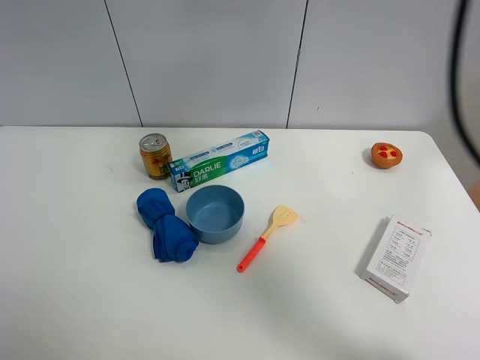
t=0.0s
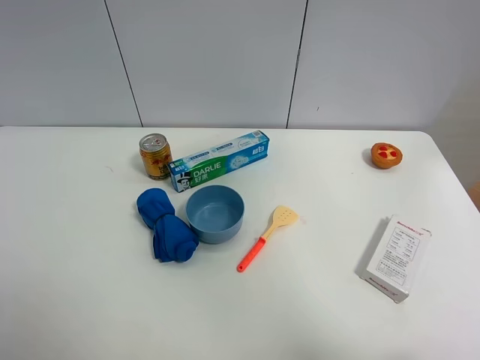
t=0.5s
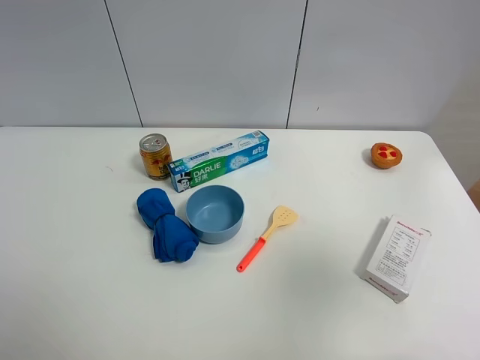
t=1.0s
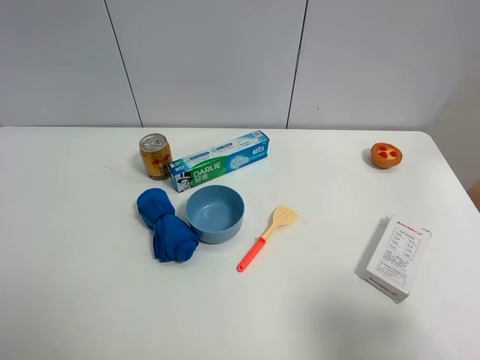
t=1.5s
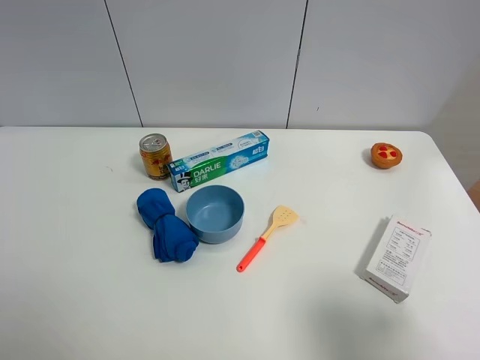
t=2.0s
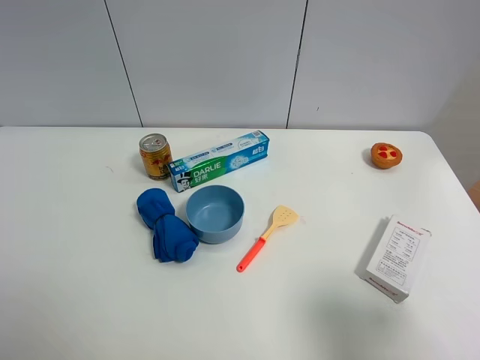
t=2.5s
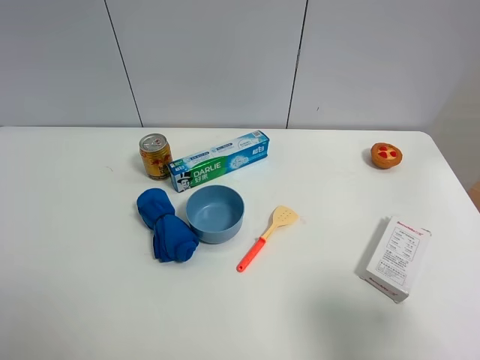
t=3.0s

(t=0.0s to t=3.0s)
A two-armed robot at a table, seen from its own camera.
Task of the whole recording: the gripper move the object.
t=0.0s - t=1.5s: The right gripper moves backward, downward and to the right, some 40 cm.

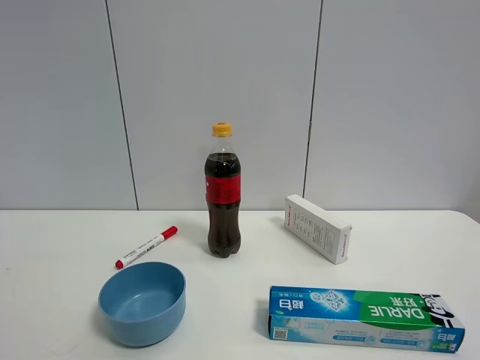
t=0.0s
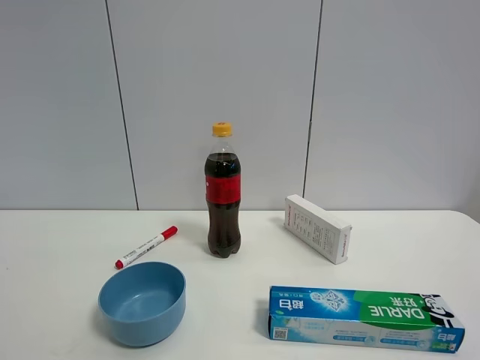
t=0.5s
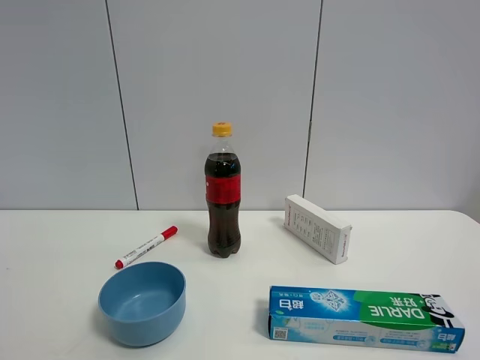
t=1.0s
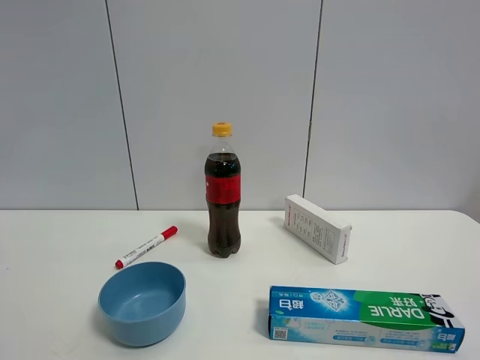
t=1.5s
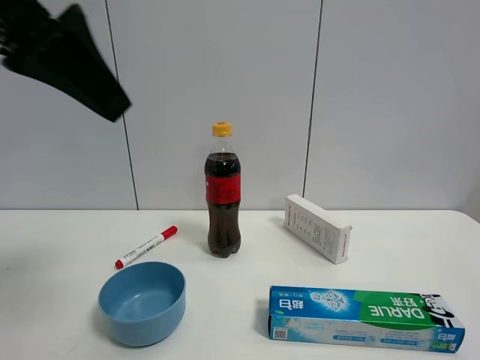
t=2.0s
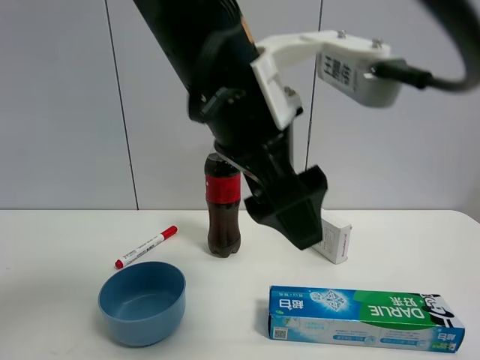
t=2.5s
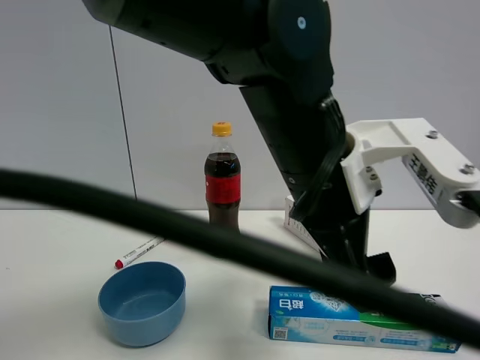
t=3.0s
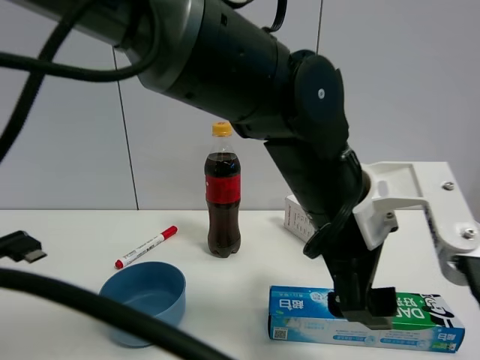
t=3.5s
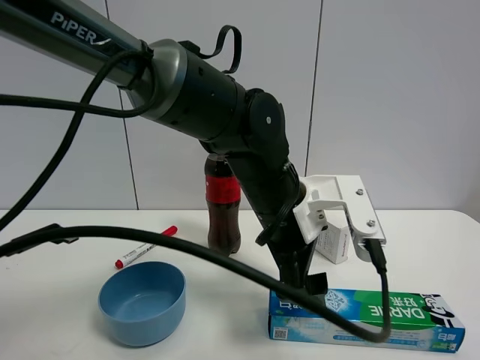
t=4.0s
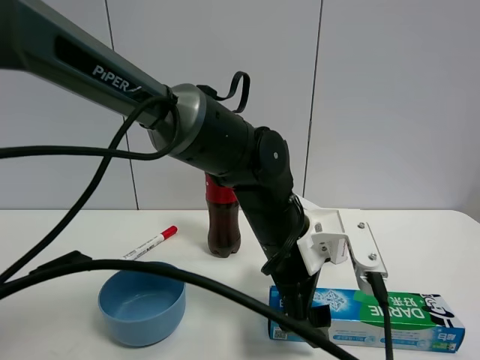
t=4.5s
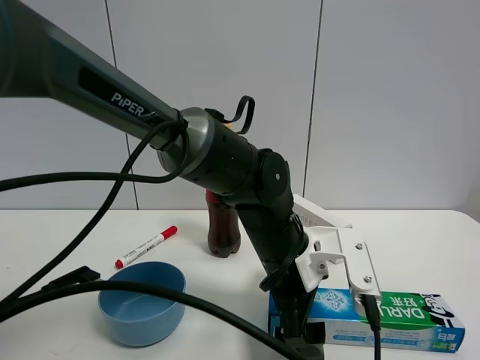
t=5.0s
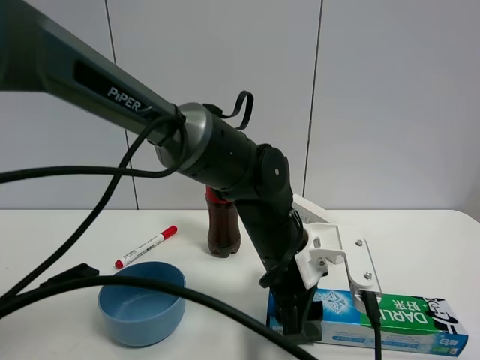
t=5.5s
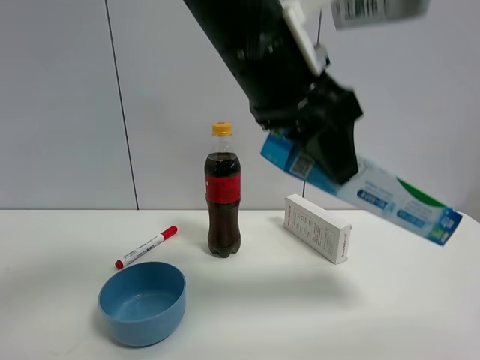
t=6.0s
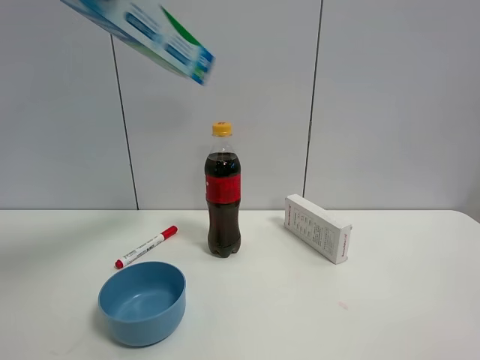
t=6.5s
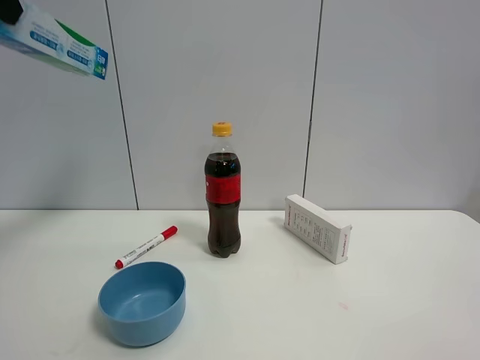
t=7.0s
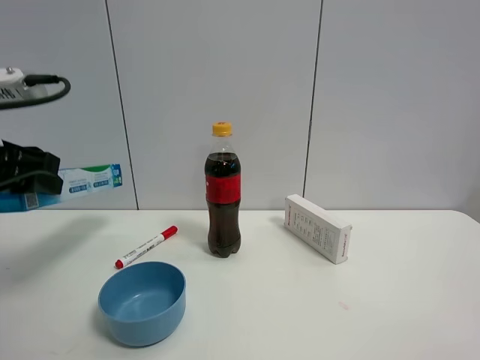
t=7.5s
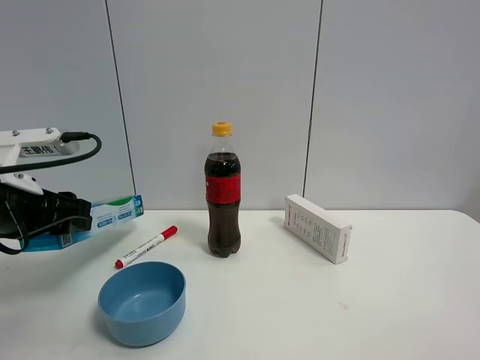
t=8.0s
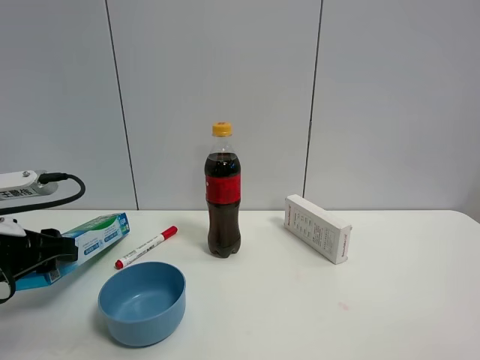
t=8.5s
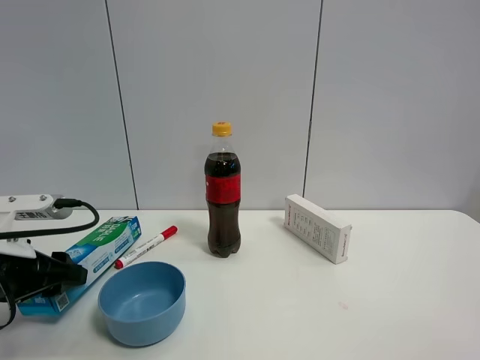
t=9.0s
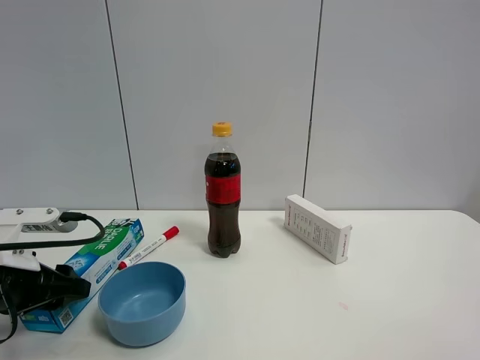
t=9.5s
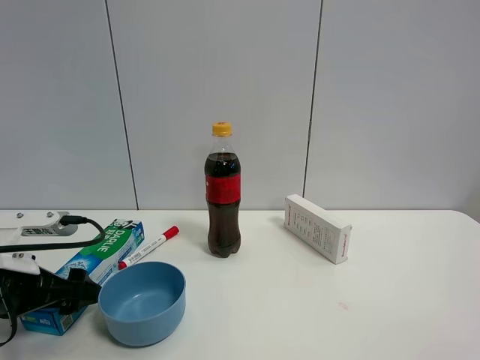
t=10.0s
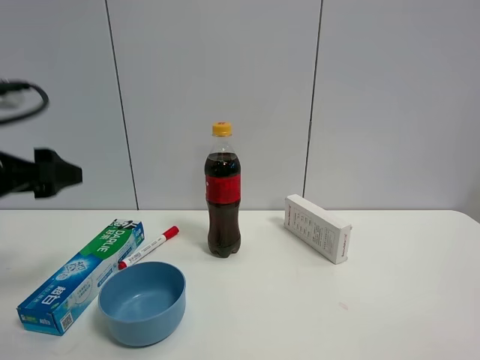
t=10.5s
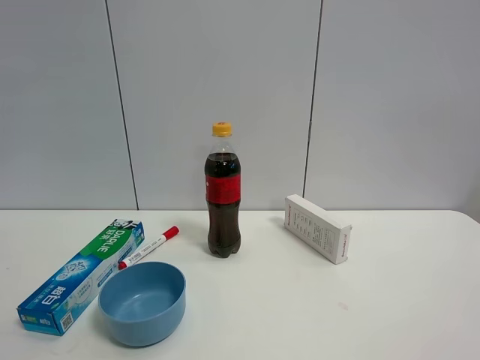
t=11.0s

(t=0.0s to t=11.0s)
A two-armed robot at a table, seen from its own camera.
Task of the whole recording: the gripper move the object.
Step, t=0.0s - t=5.0s: Grasp the toothpaste with the left gripper.
Step, t=5.5s - t=10.0s: Place the toothpaste on the table with the left gripper.
t=0.0s - t=2.0s: The left gripper is displaced forward and to the right by approximately 30 cm.
t=2.0s - t=3.5s: The left gripper travels to the right and downward by roughly 30 cm.
t=3.5s - t=5.5s: The left gripper moves downward, roughly 5 cm, and closes up.
t=5.5s - t=7.5s: The left gripper is displaced to the left by some 30 cm, and moves roughly 35 cm upward and comes back.
t=7.5s - t=9.0s: The left gripper is displaced downward by approximately 15 cm.
t=9.0s - t=11.0s: The left gripper is displaced upward by roughly 30 cm, and opens up.

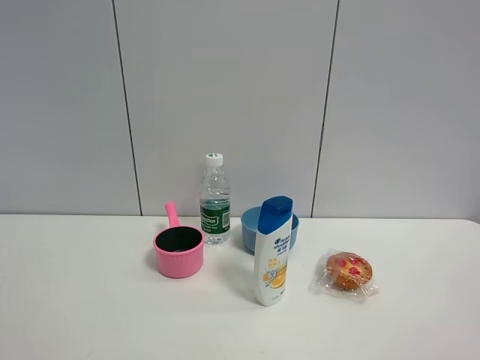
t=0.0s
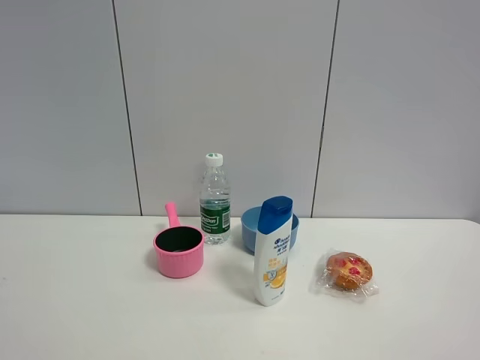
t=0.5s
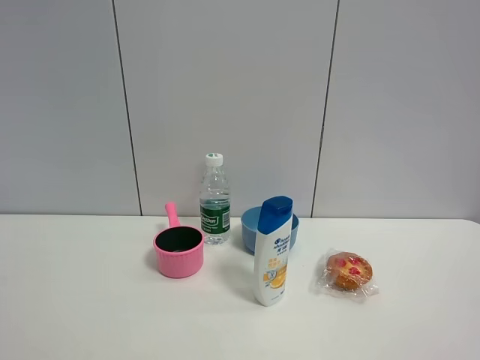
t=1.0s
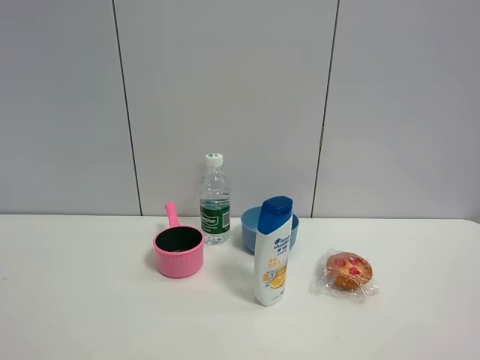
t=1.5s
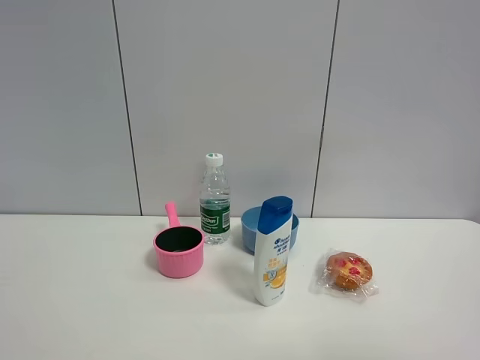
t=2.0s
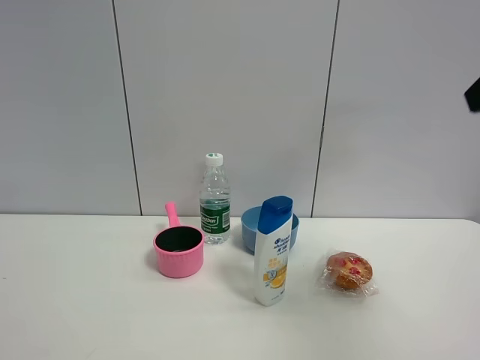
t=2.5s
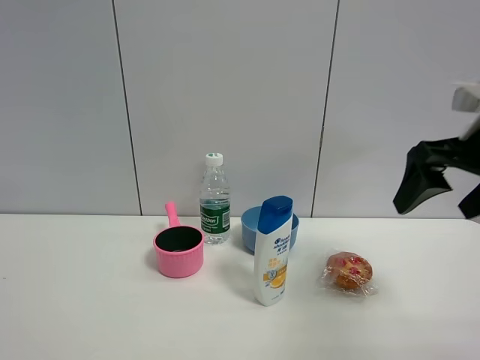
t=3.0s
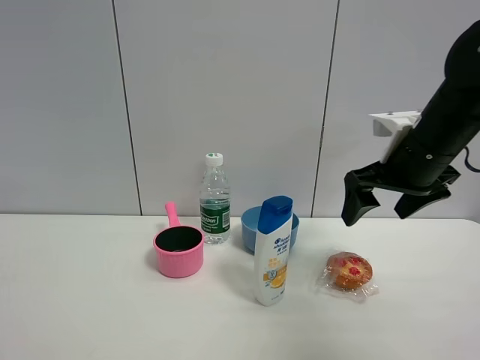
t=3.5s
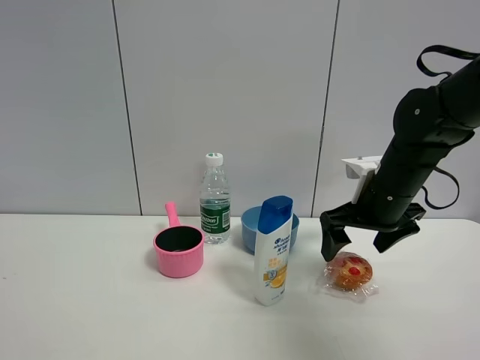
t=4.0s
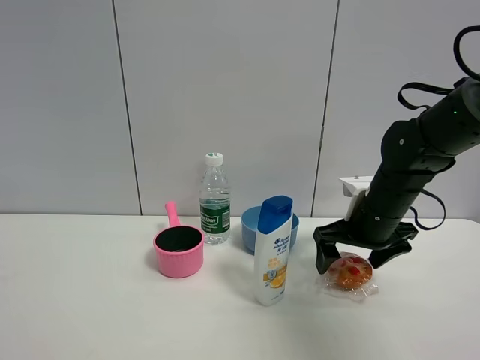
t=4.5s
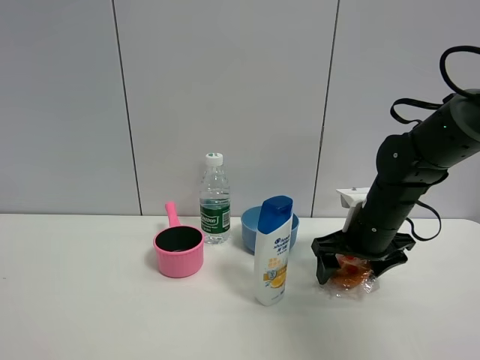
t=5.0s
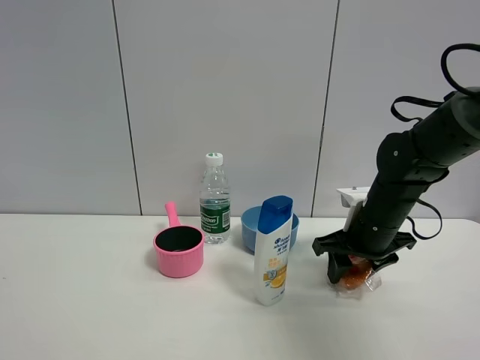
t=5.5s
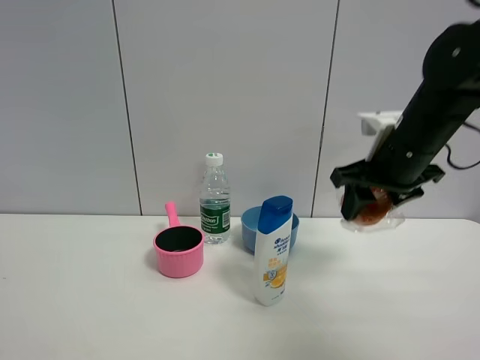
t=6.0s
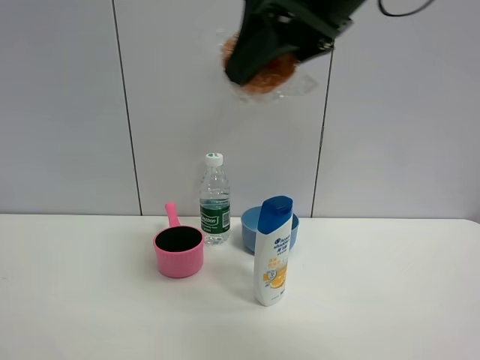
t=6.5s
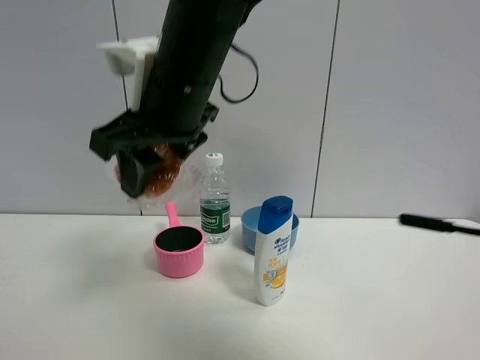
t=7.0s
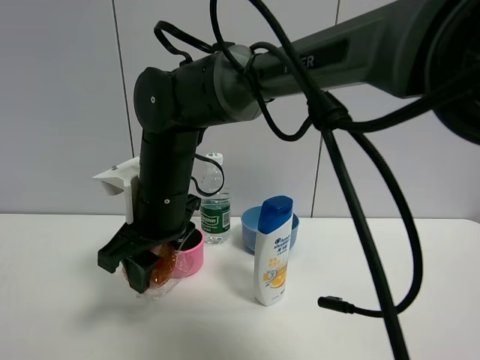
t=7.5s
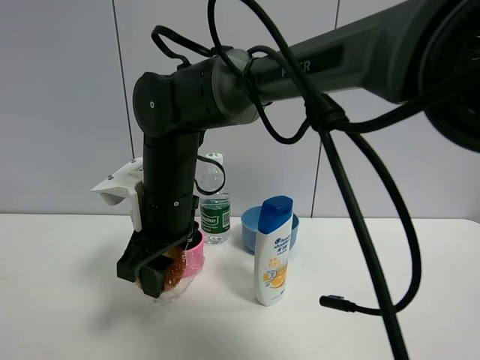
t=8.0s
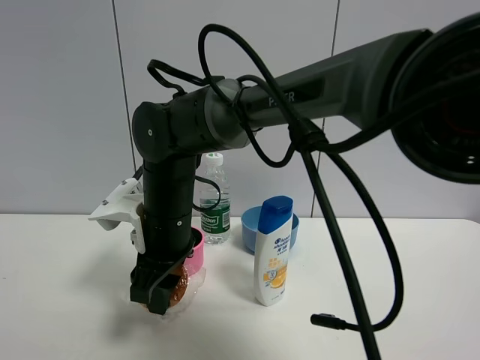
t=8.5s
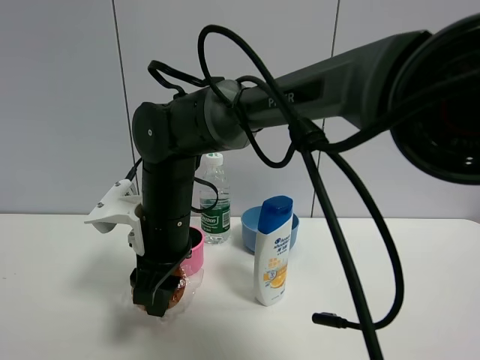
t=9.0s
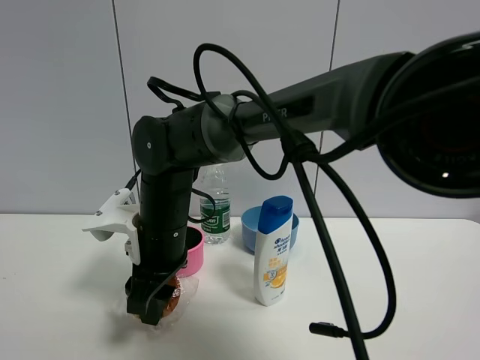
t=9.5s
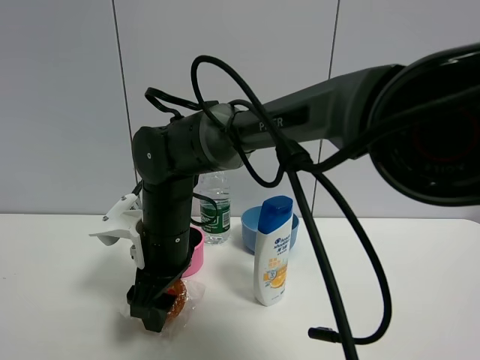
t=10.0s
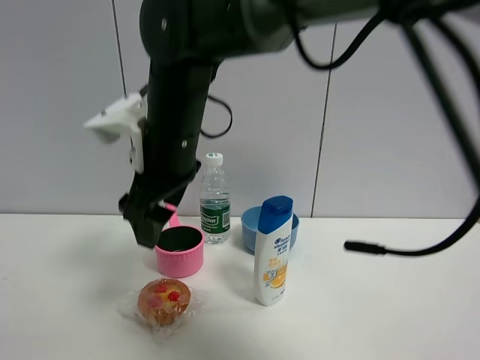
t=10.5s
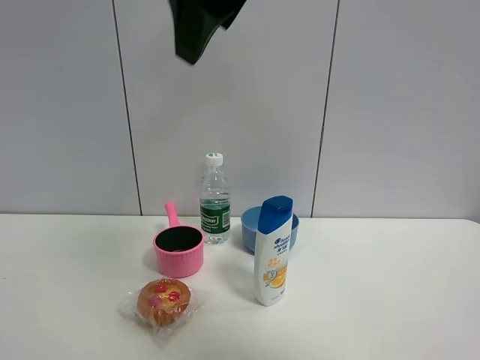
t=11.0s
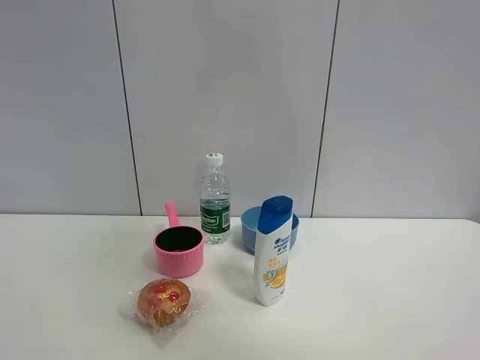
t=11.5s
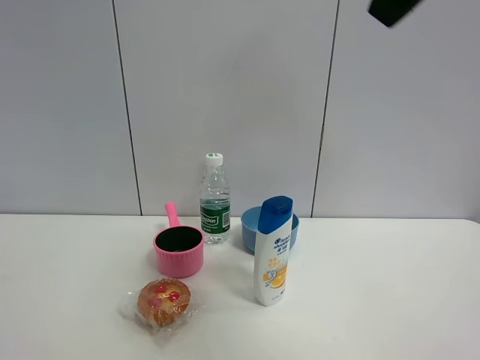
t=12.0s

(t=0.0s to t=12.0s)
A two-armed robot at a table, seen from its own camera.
Task of the whole recording: the gripper move the object.
Step, t=0.0s - t=5.0s: Grasp the egg tart with the right gripper.
Step, t=5.5s - t=10.0s: Place the egg tart on the table with the right gripper.
t=2.0s - t=4.0s: The right gripper moves forward and downward, about 40 cm.
t=4.0s - t=6.0s: The right gripper is displaced upward by some 10 cm, and closes its fingers.
t=6.0s - t=8.0s: The right gripper moves to the left, some 30 cm.
t=8.0s - t=10.0s: The right gripper opens up.
t=10.0s - t=12.0s: The right gripper shifts about 40 cm upward, to the right and backward.
